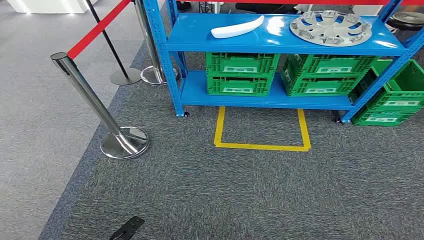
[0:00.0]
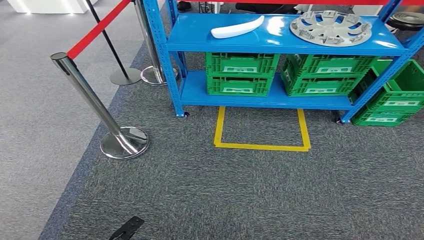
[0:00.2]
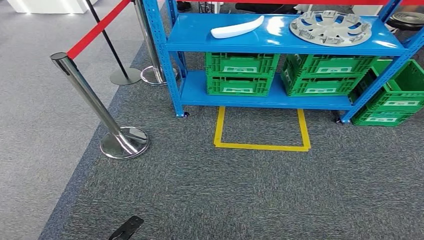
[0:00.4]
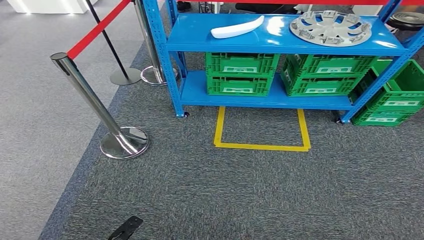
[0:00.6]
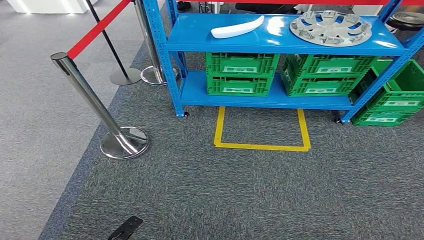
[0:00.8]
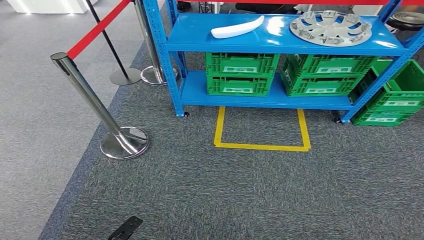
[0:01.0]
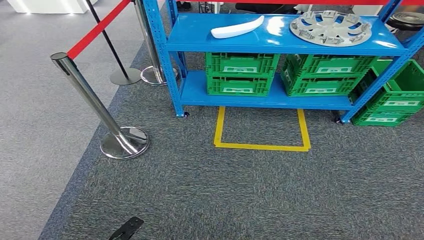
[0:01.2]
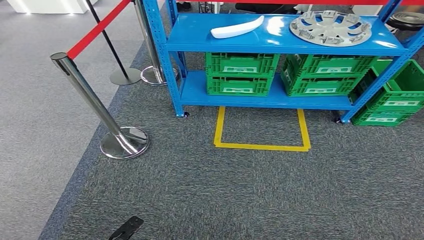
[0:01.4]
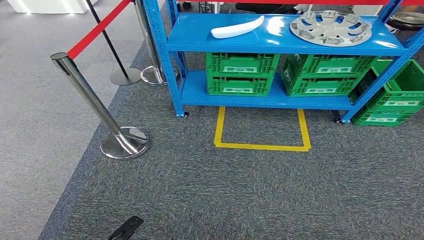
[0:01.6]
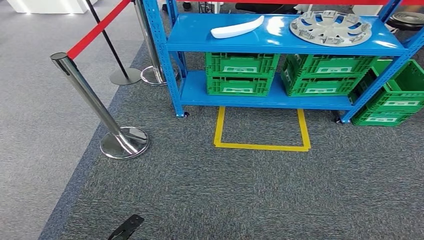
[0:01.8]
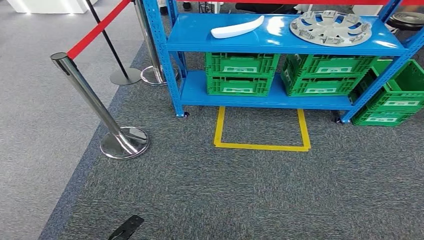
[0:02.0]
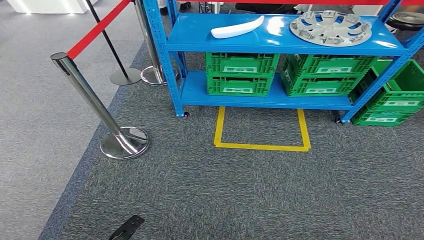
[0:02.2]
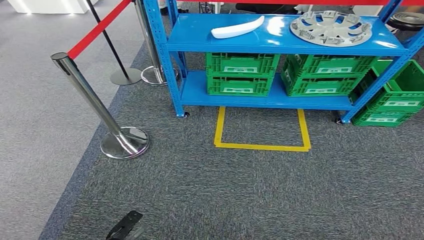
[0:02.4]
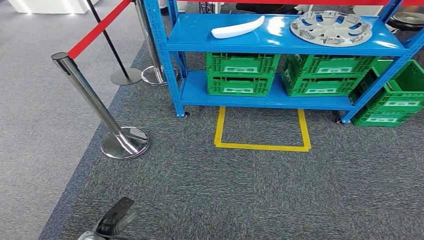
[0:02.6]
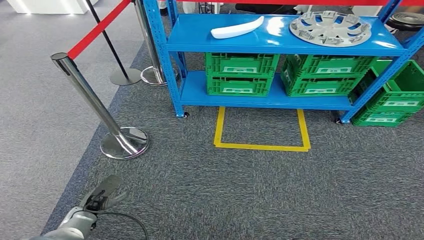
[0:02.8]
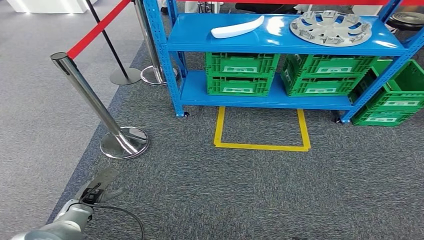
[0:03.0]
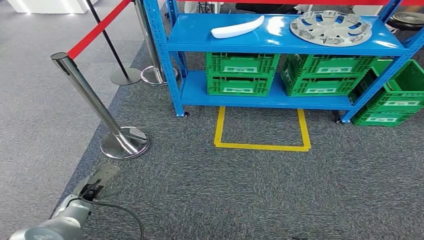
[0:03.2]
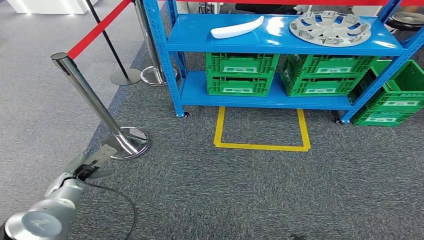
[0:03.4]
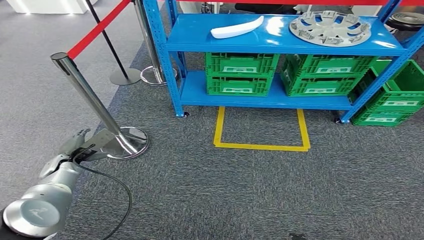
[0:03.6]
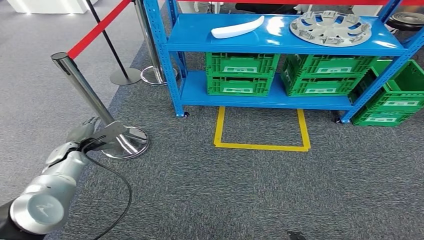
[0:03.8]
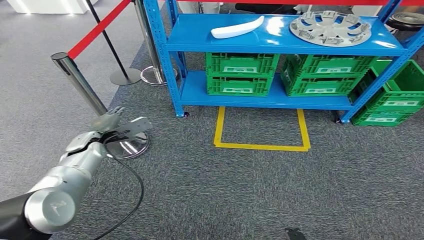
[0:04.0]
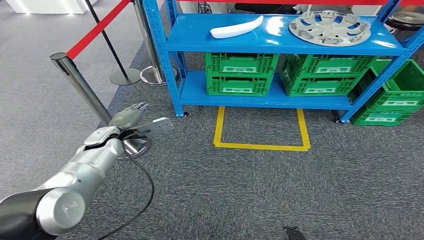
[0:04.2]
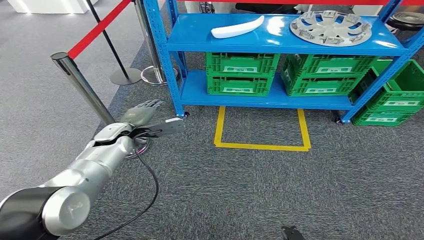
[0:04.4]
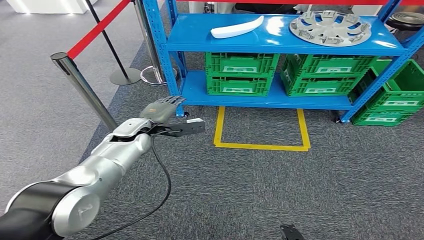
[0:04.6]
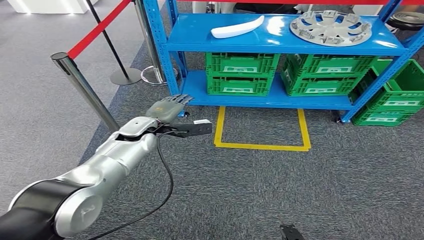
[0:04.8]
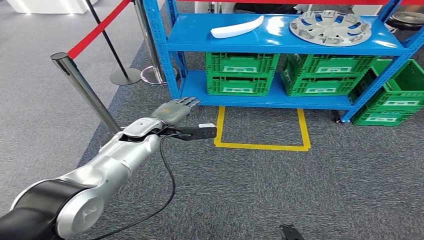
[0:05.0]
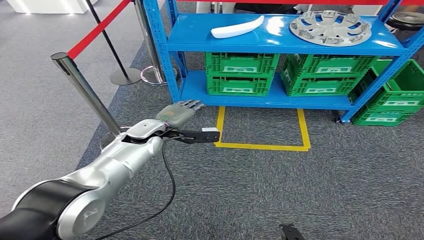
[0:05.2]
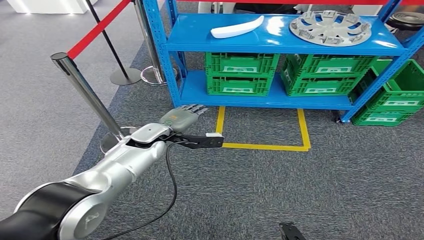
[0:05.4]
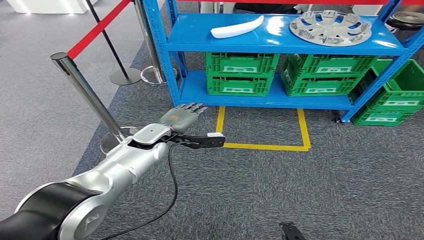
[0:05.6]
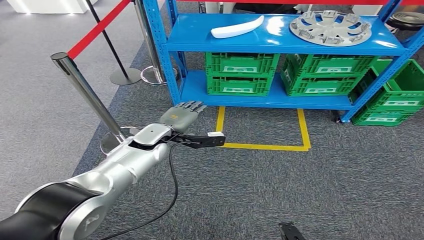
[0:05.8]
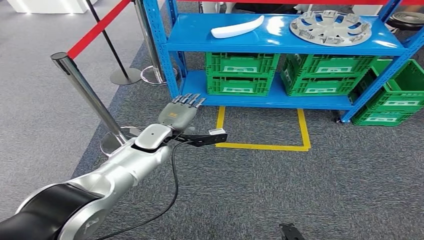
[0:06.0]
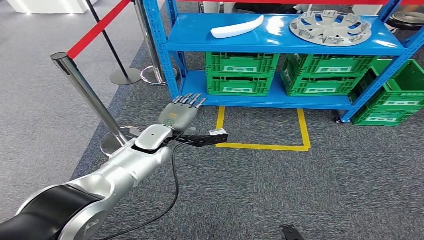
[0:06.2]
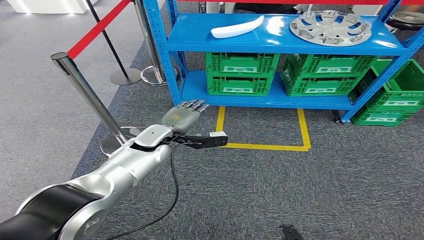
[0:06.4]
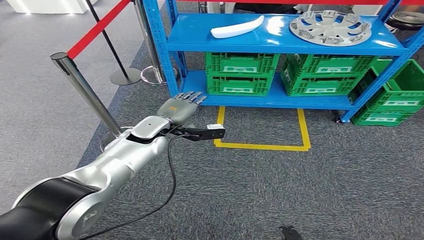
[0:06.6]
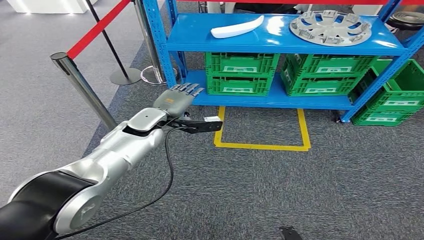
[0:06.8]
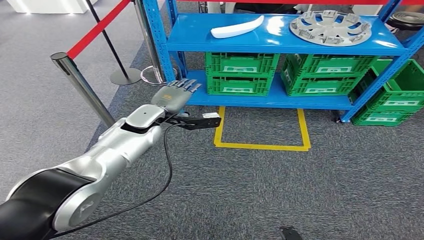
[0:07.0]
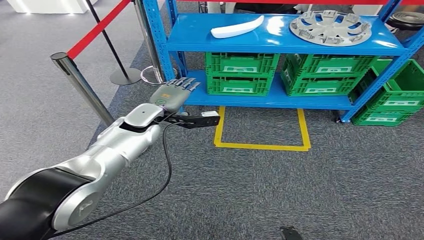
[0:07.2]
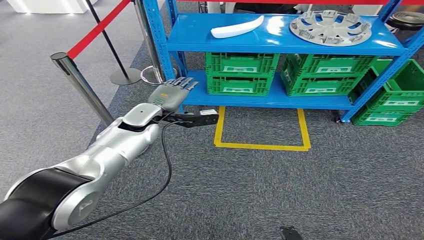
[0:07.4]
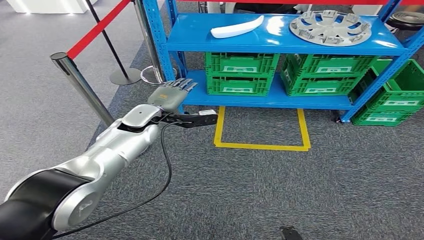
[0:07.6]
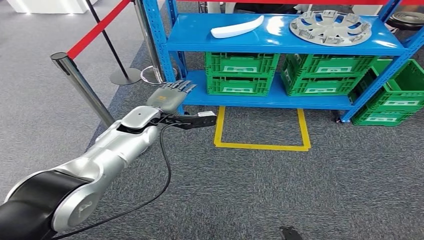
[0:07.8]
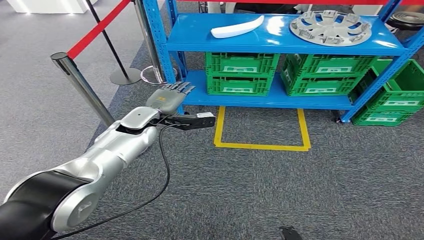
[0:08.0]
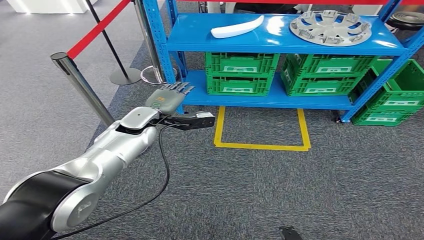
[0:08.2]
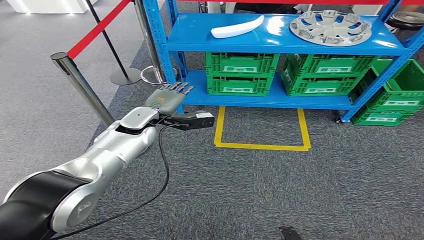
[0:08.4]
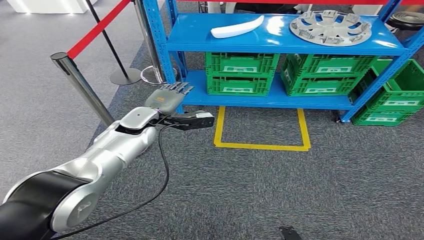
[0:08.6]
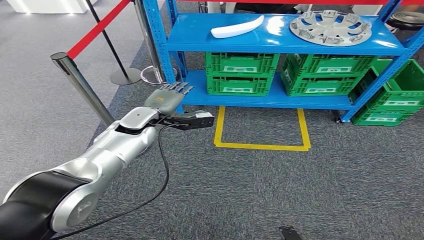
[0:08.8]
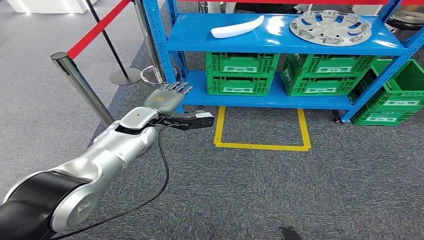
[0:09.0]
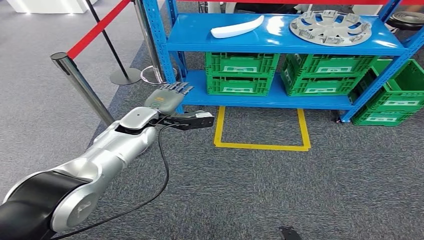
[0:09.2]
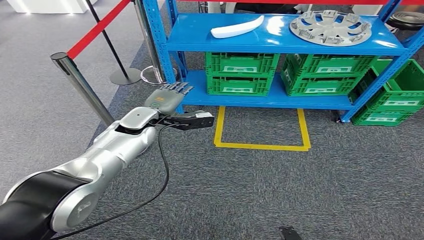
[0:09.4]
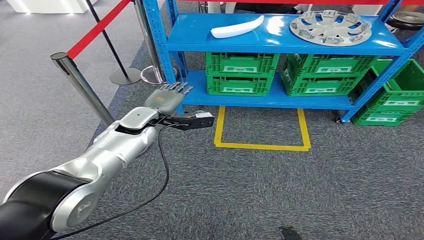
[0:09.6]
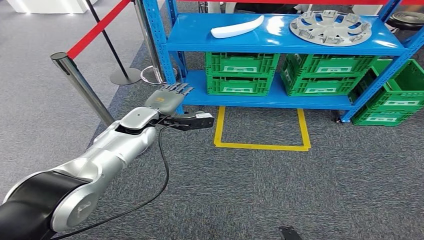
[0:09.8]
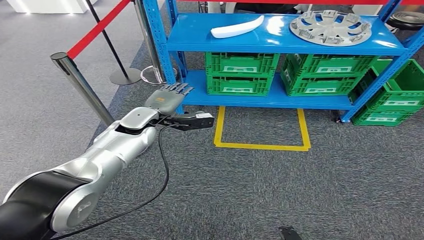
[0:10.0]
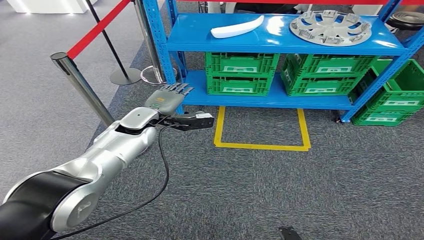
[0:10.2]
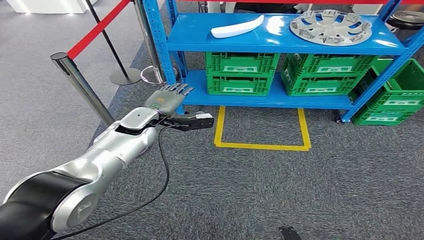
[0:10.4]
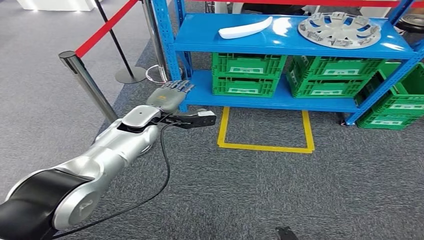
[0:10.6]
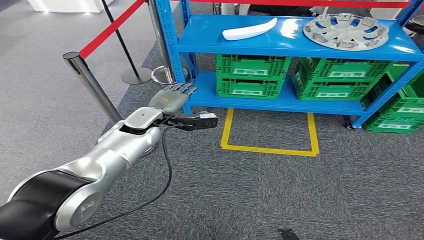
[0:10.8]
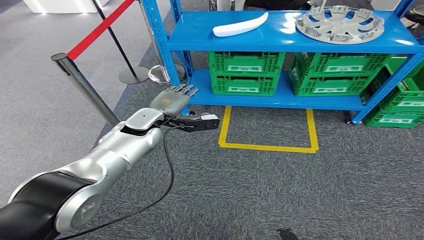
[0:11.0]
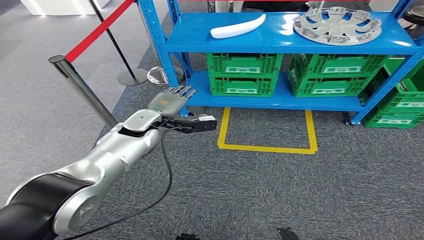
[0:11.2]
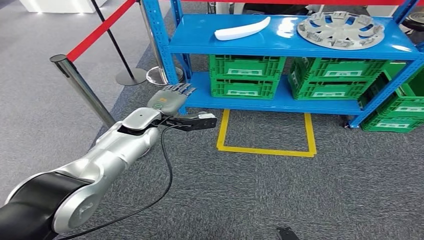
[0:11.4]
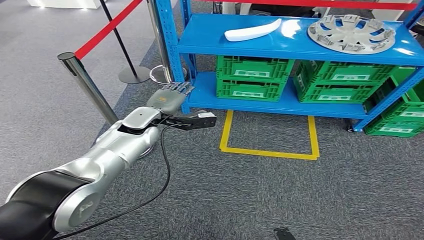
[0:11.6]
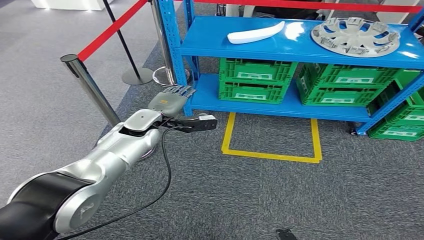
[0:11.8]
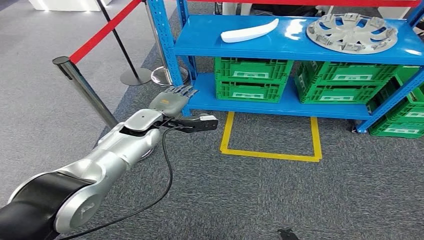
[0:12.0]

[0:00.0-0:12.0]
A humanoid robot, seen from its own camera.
0:01.6 to 0:03.0: The left hand shifts roughly 15 cm forward and to the left.
0:03.0 to 0:04.4: The left hand goes about 25 cm forward and upward.
0:04.4 to 0:06.0: The left hand travels to the right by approximately 10 cm.
0:06.0 to 0:07.6: The left hand goes roughly 5 cm upward.
0:07.6 to 0:10.4: Neither hand changes place.

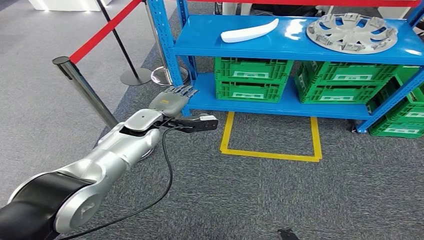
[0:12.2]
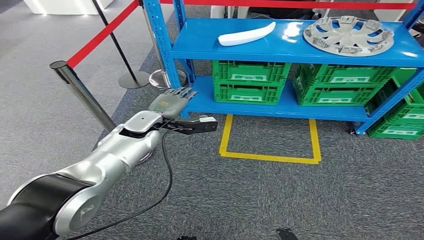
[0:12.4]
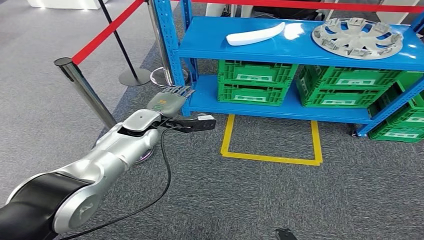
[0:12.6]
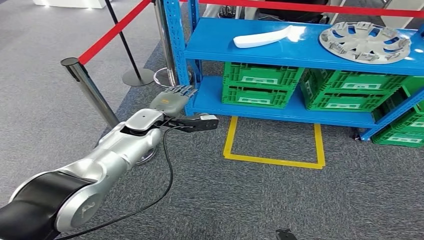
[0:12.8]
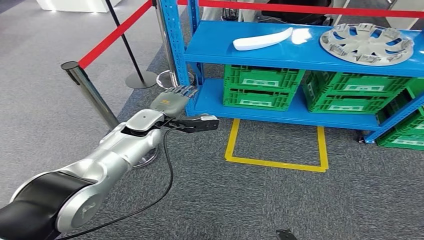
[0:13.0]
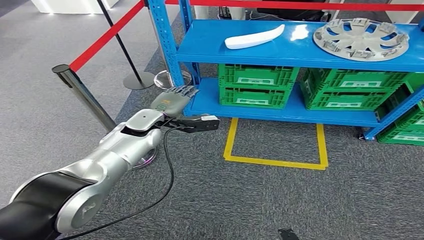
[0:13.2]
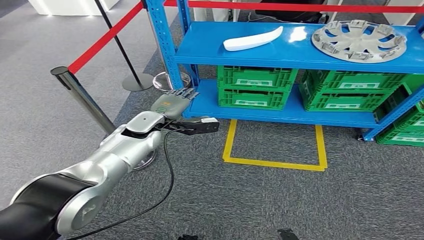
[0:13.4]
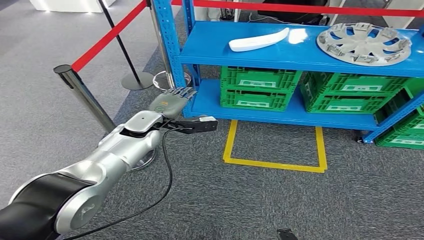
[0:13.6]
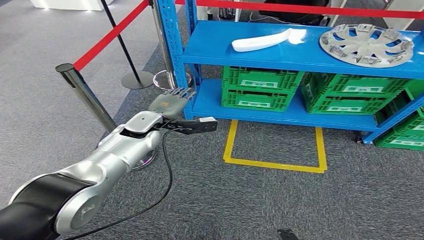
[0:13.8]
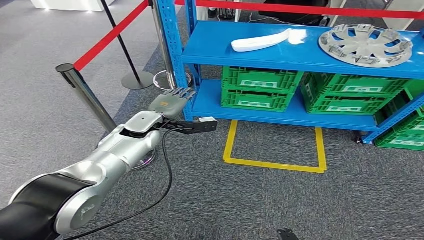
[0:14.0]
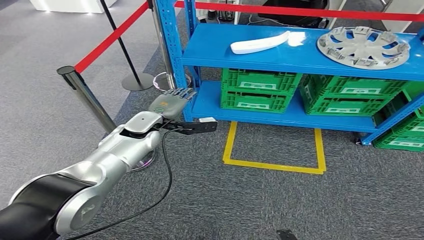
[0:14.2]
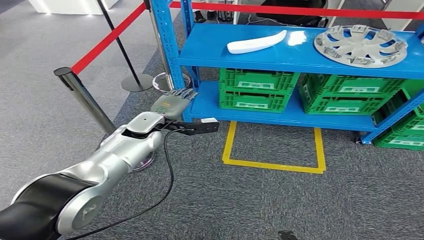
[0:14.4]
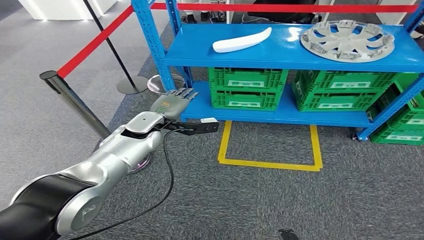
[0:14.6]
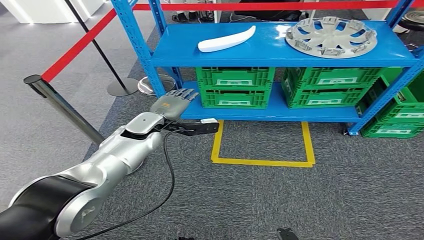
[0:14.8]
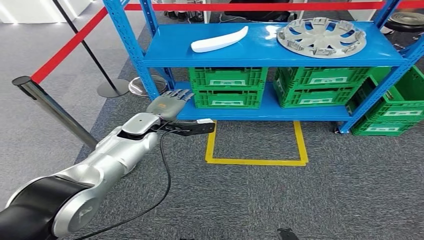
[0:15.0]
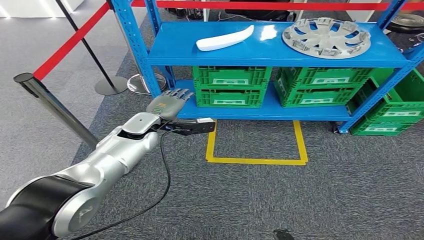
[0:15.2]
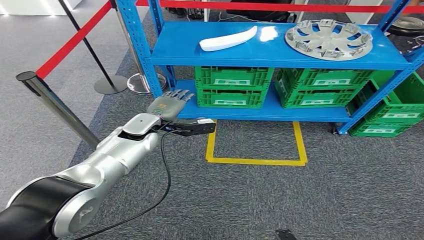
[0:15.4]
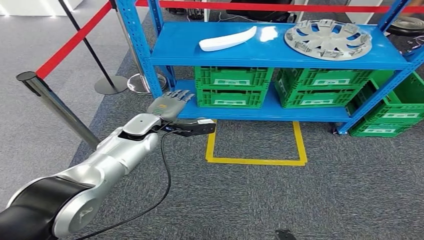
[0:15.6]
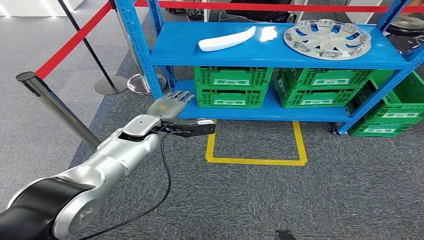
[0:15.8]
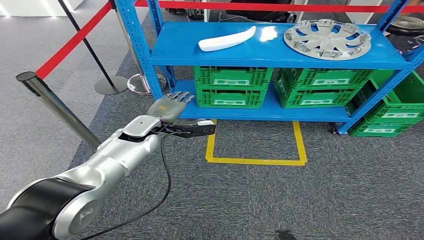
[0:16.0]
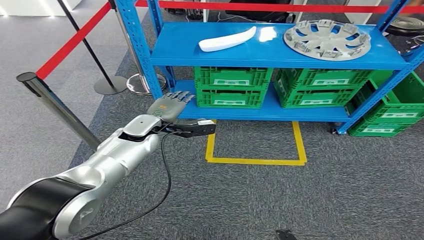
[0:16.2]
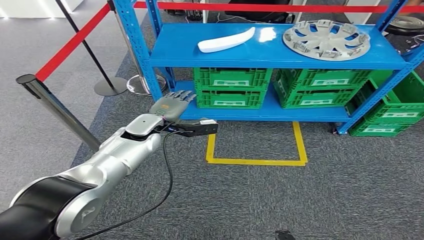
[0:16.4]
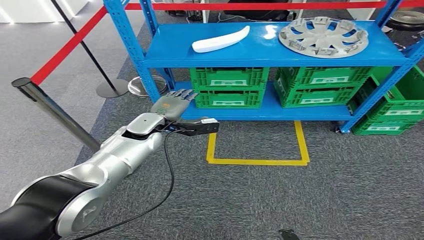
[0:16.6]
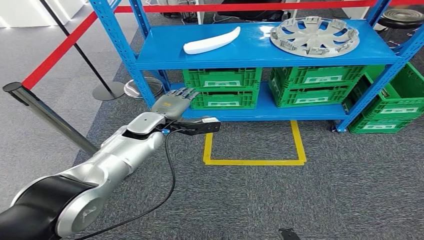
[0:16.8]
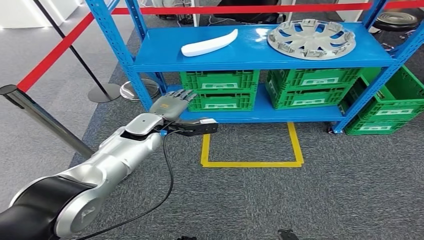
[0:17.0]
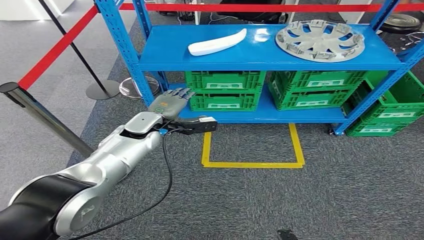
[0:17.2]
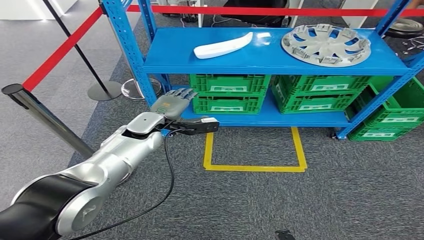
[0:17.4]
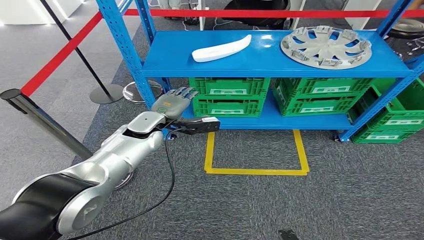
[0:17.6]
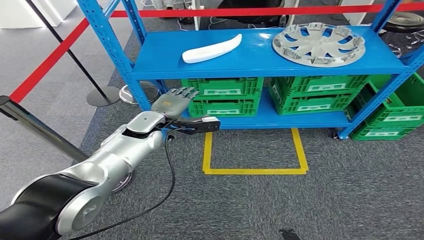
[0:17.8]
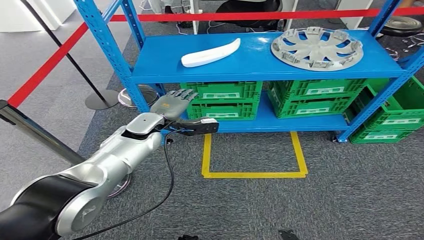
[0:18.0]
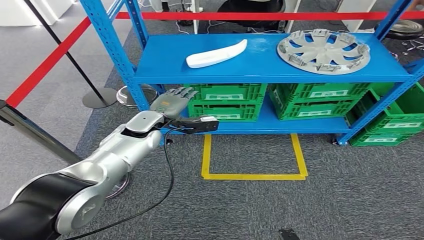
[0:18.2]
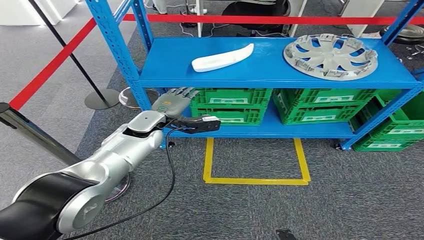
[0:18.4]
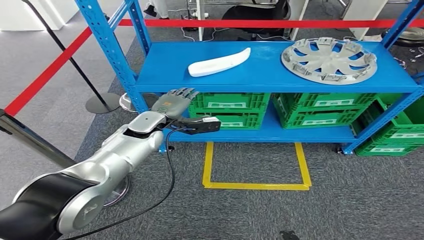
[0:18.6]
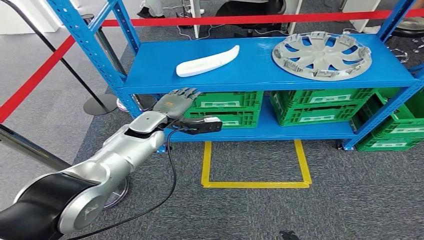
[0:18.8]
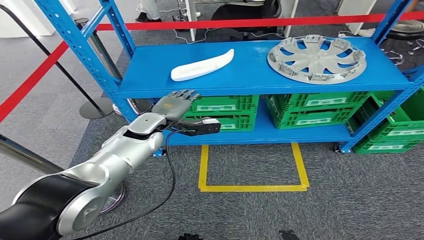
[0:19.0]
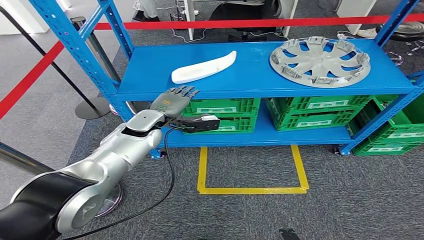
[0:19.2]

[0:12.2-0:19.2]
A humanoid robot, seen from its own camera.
0:15.0 to 0:16.4: Both hands stay about where they are.
